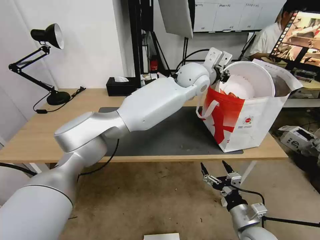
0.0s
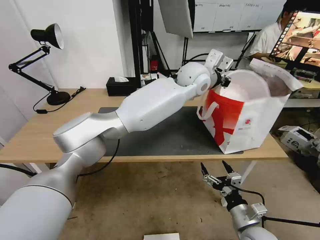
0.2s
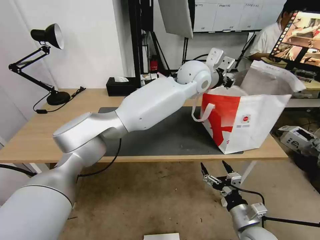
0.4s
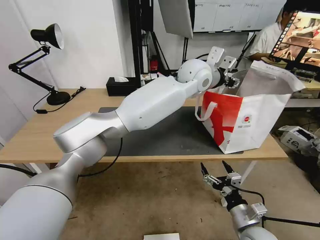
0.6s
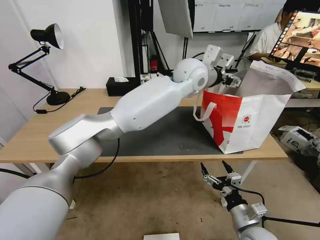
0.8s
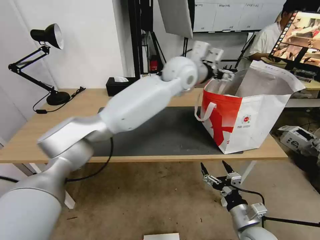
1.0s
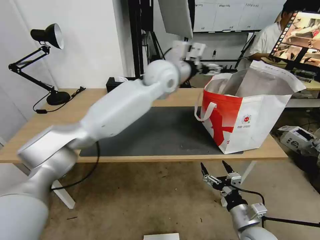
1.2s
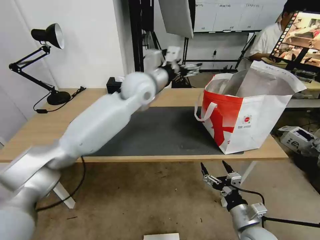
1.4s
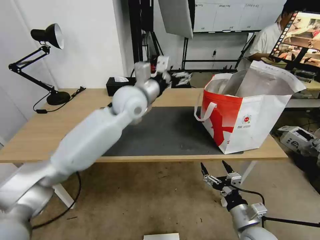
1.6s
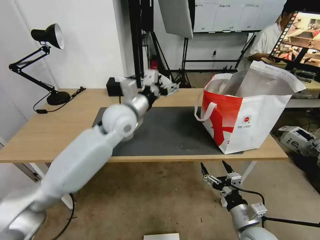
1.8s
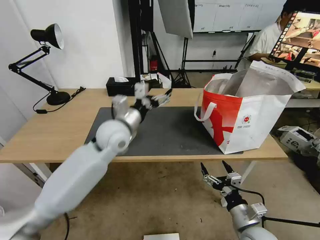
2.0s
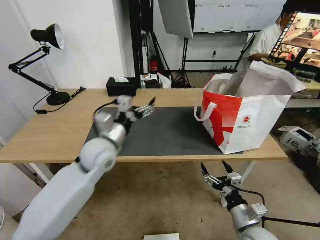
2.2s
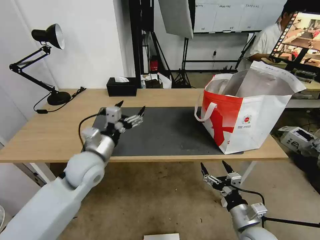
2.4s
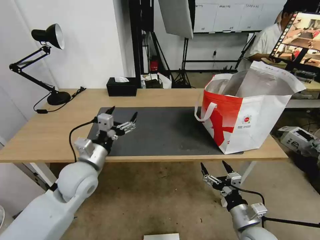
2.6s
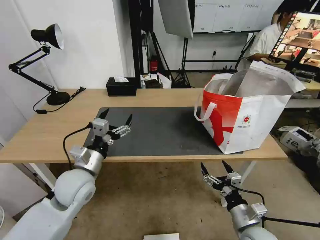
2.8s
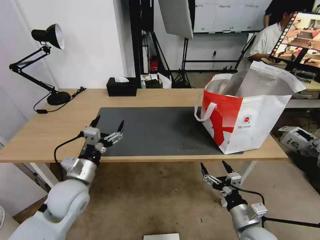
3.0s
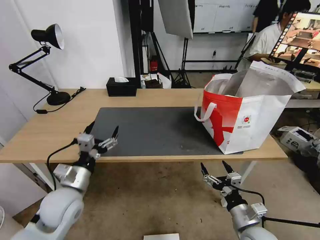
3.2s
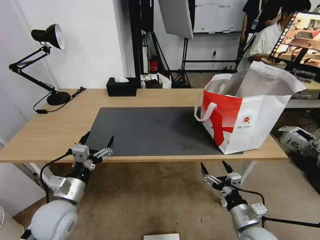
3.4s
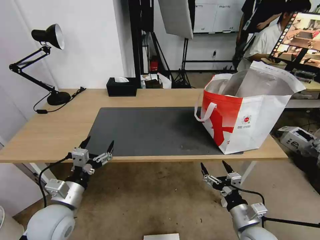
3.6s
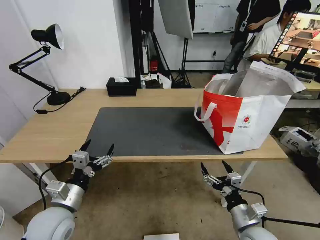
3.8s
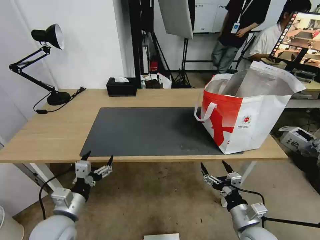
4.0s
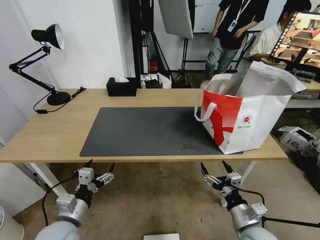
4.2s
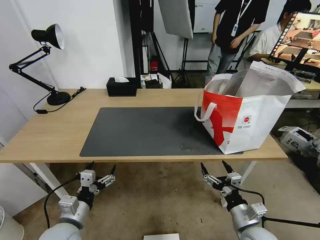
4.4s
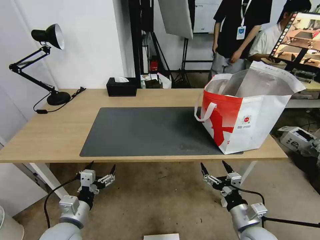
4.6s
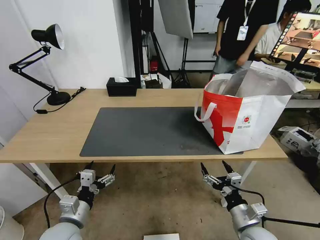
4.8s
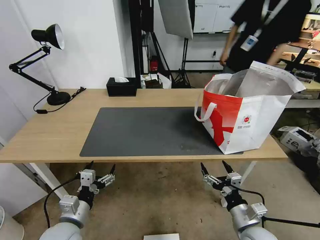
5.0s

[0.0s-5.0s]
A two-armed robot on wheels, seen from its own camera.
Task of the whole recording: Pick up the trash from the table and place it into the takeout bag.
0.0s to 1.6s: The left gripper is displaced to the left and backward by some 20 cm, and opens.
1.6s to 3.4s: The left gripper shifts about 35 cm backward, downward and to the left.
3.4s to 5.0s: The left gripper shifts roughly 5 cm downward.

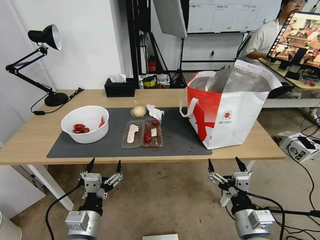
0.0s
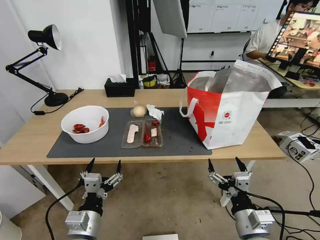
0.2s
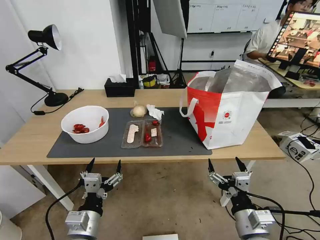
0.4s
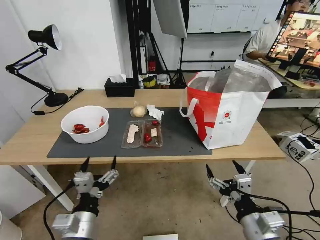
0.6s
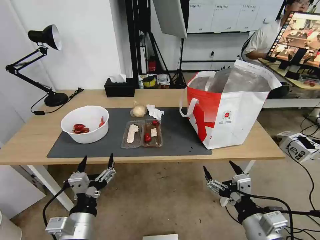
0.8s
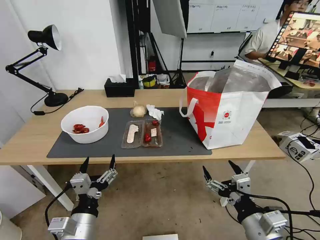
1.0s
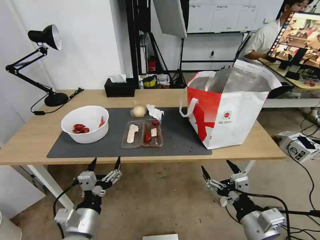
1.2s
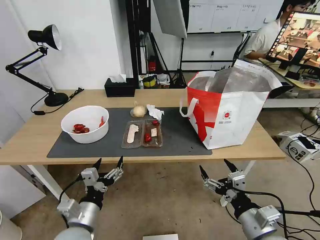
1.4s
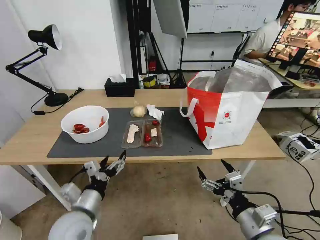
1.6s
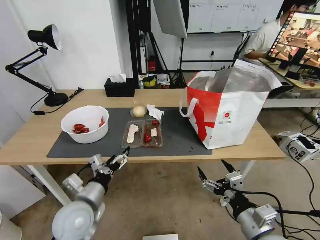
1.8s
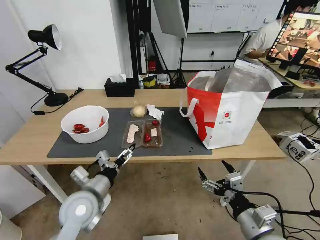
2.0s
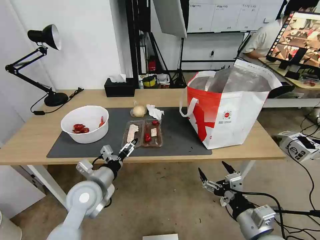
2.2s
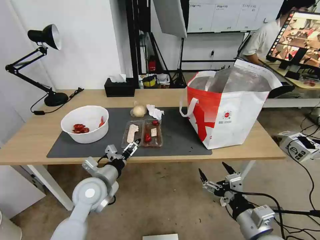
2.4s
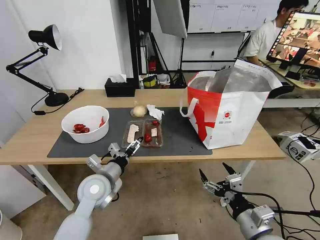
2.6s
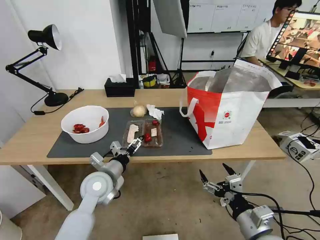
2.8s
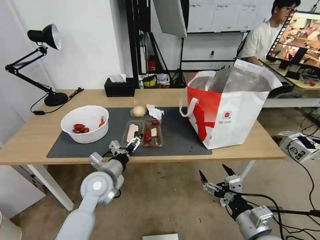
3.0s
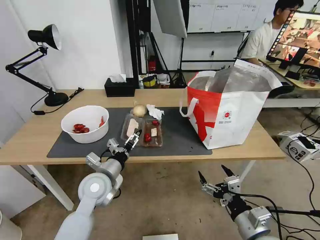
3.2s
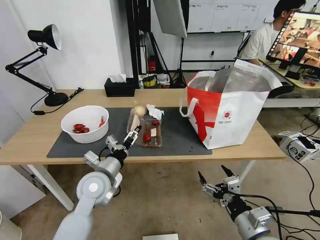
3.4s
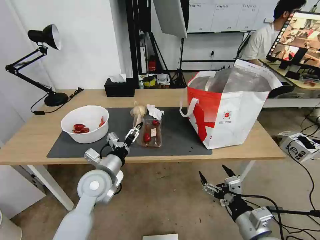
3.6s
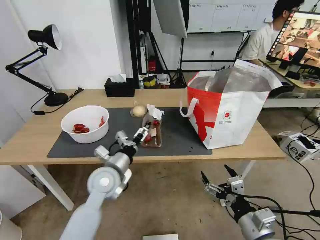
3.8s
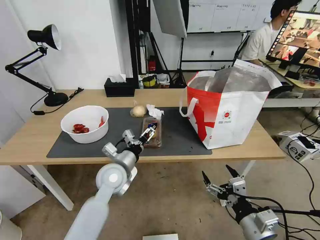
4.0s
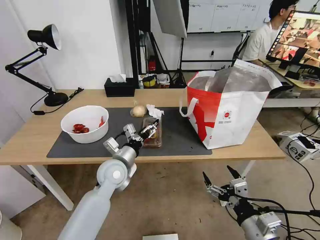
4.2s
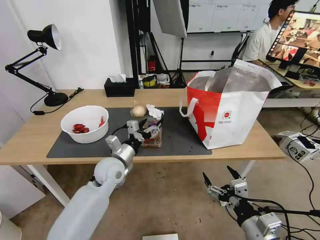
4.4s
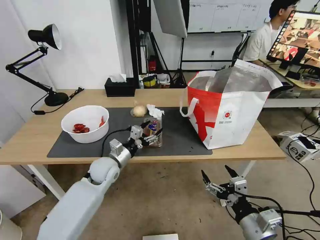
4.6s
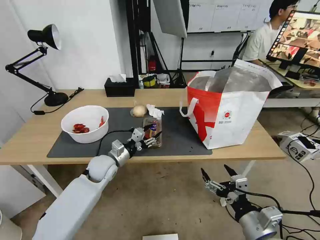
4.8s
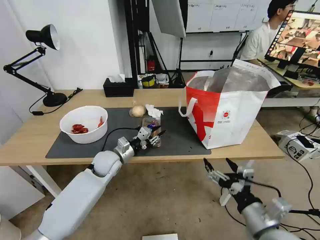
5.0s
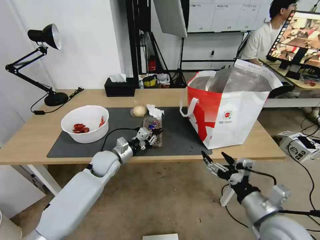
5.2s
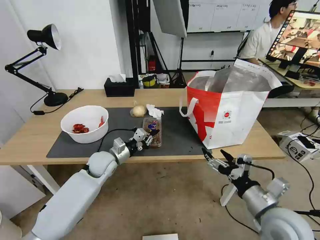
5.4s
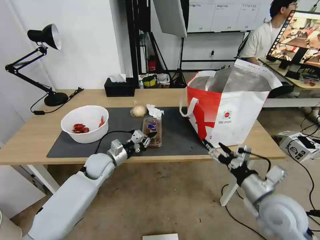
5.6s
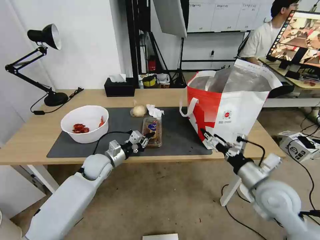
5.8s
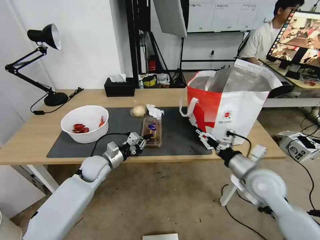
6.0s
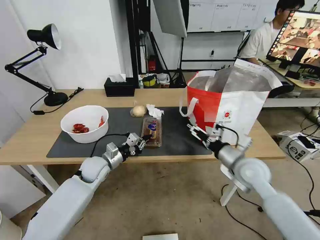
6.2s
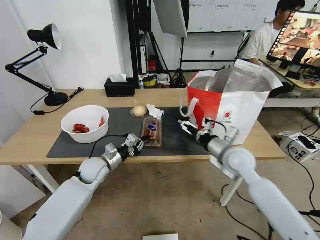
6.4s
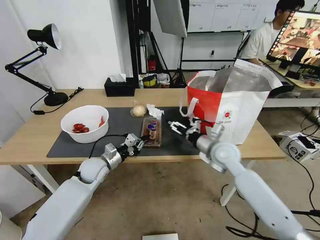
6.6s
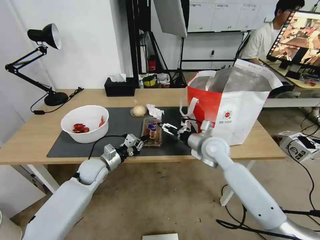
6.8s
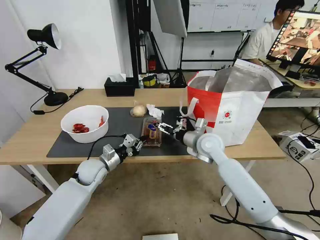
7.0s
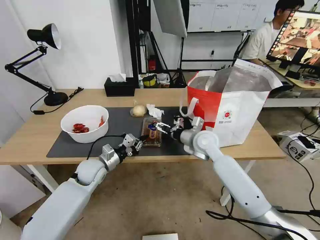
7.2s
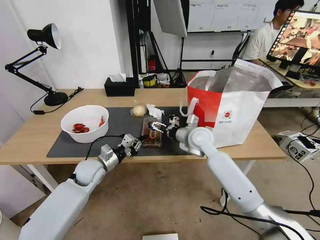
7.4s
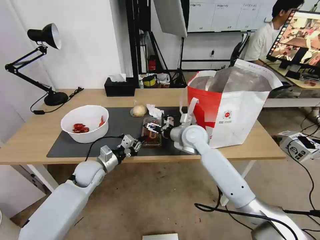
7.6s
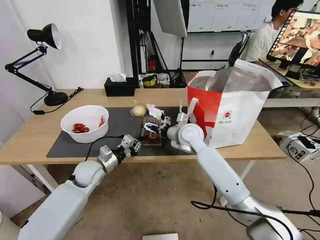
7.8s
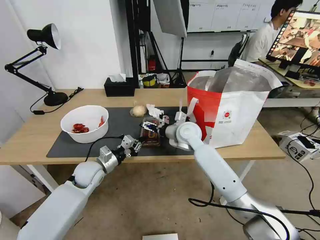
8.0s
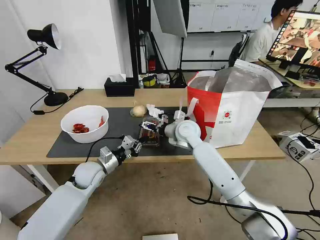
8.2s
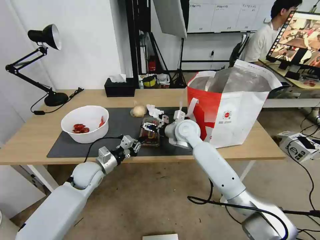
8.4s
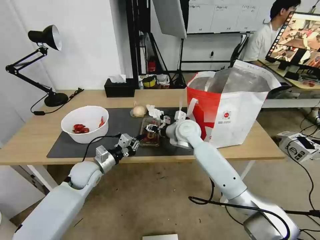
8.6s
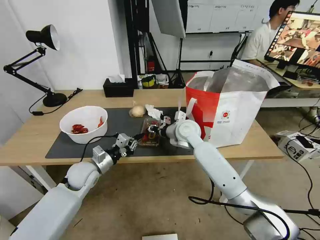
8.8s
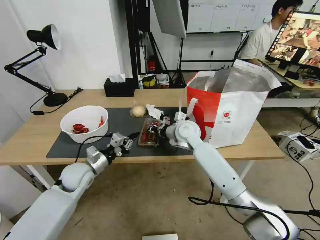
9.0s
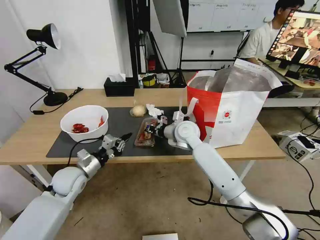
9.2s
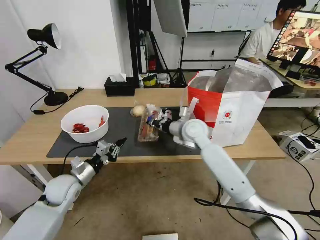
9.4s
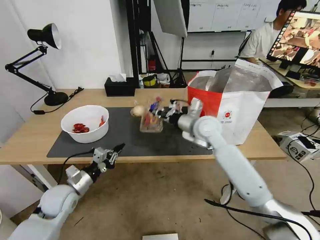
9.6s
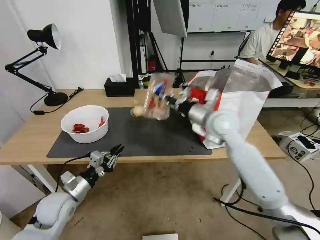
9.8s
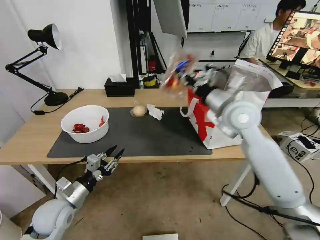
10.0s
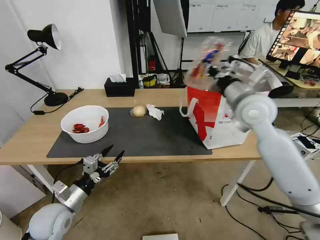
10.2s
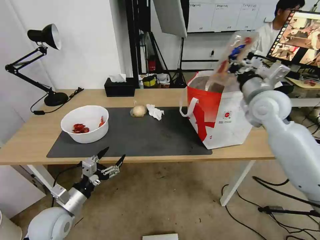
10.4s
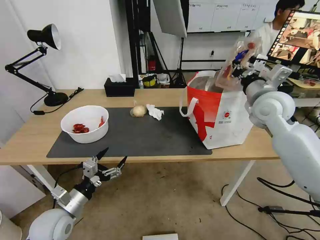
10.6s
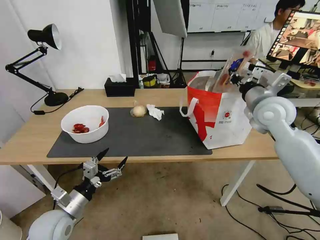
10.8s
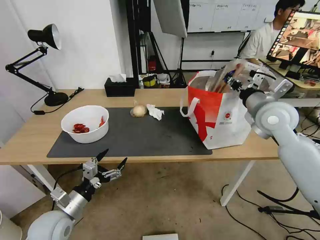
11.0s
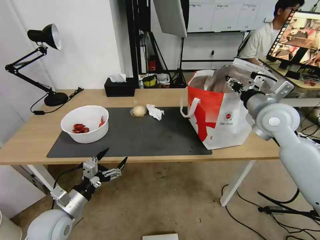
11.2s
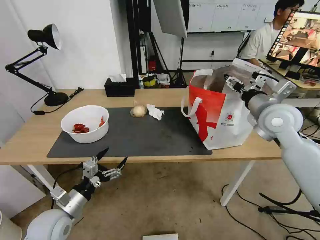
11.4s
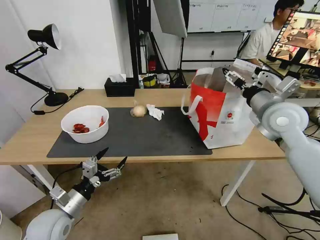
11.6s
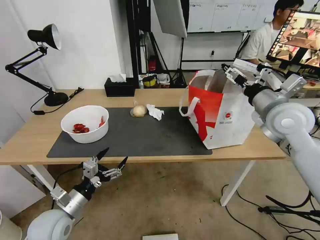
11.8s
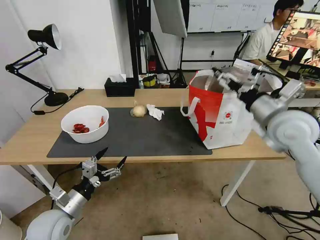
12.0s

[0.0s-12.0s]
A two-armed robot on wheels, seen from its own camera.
Task of the whole recording: Pick up the trash from the table and place it into the takeout bag.
1.6s to 3.0s: The left gripper goes some 10 cm forward.
3.0s to 4.4s: The left gripper goes about 5 cm forward.
4.4s to 6.0s: The left gripper goes roughly 5 cm to the left, and closes its fingers, while the right gripper goes roughly 20 cm forward.
6.0s to 7.6s: The right gripper travels forward and to the left by approximately 25 cm.
7.6s to 9.0s: The right gripper closes.
9.0s to 10.4s: The left gripper goes some 15 cm backward, and opens up; the right gripper goes some 25 cm to the right and upward.
10.4s to 12.0s: The right gripper shifts about 10 cm backward, and opens its fingers.

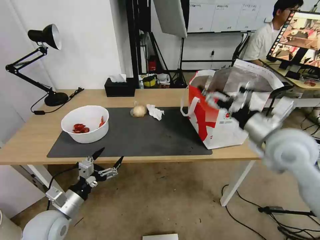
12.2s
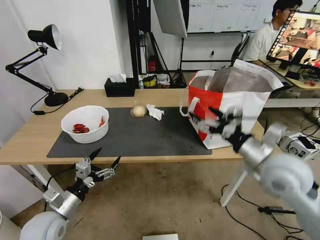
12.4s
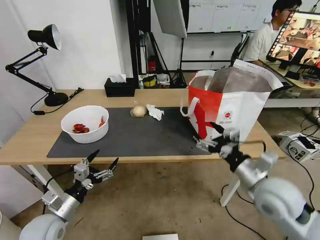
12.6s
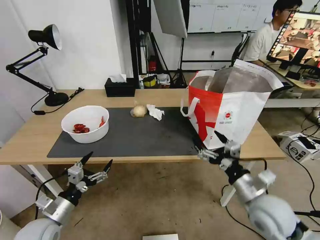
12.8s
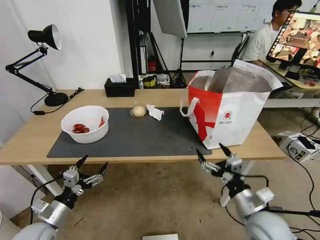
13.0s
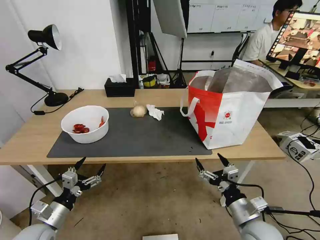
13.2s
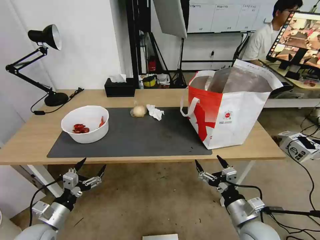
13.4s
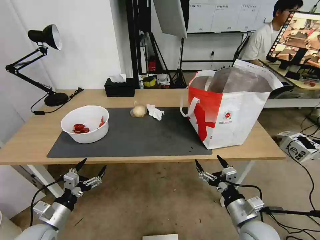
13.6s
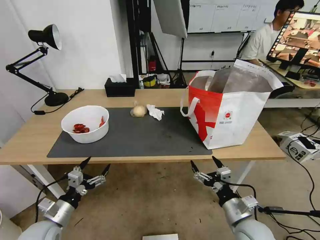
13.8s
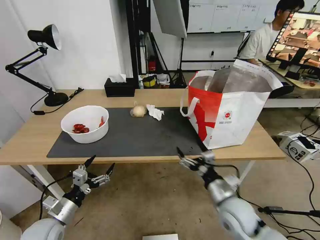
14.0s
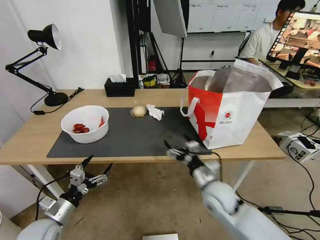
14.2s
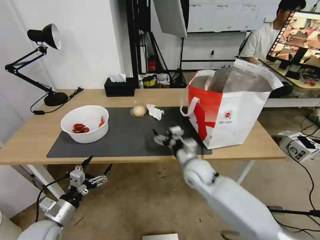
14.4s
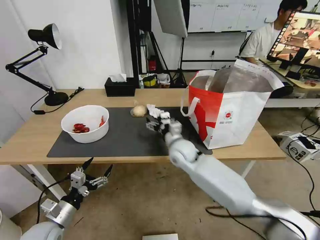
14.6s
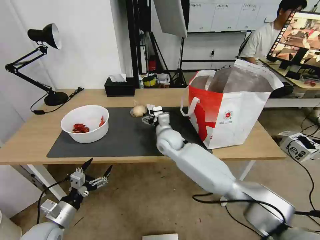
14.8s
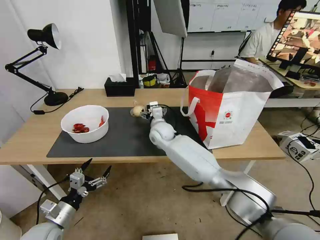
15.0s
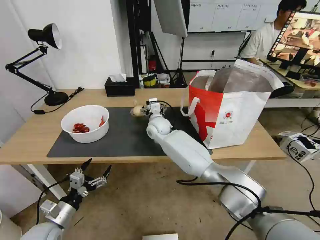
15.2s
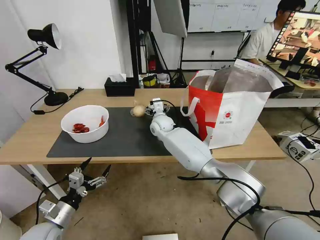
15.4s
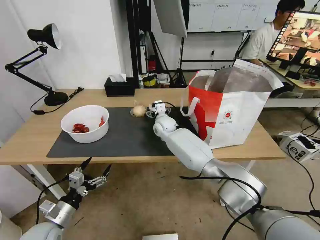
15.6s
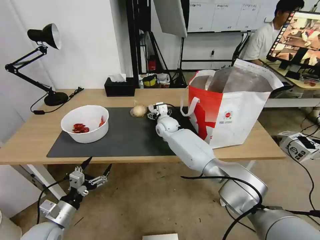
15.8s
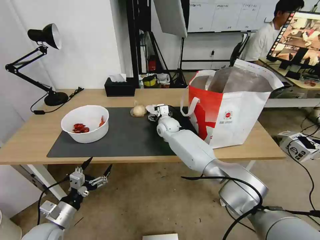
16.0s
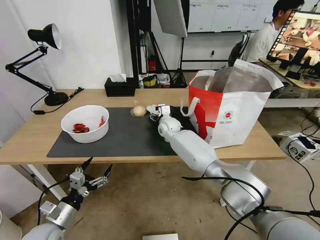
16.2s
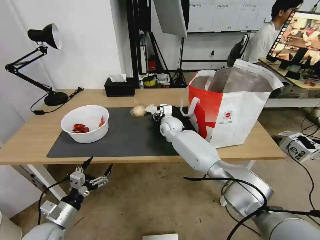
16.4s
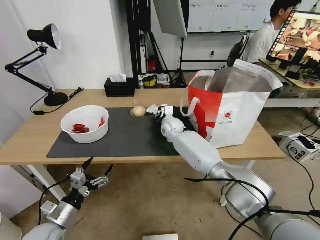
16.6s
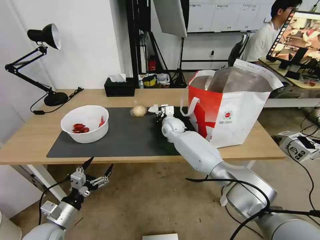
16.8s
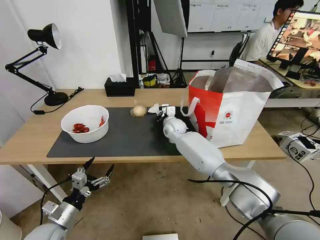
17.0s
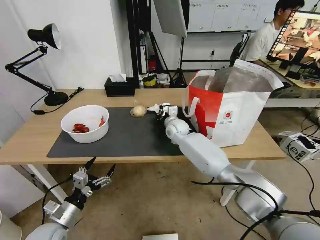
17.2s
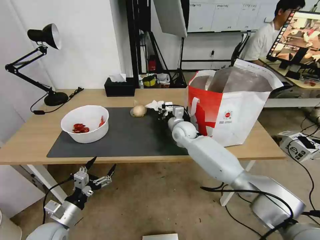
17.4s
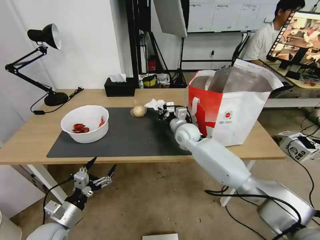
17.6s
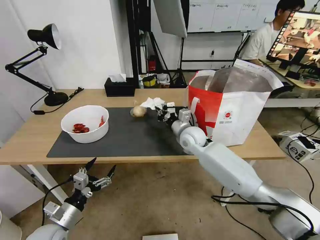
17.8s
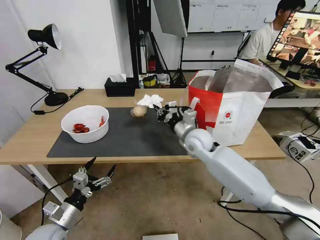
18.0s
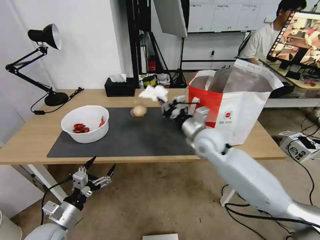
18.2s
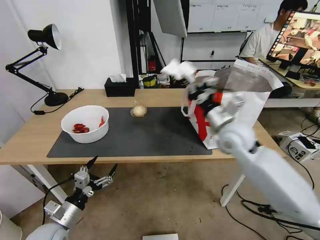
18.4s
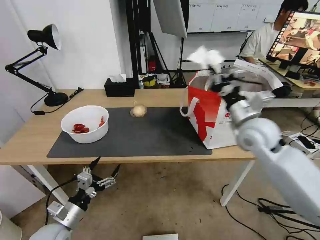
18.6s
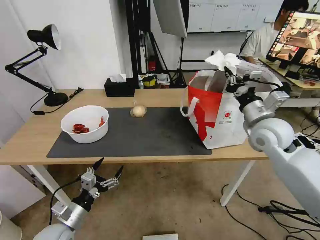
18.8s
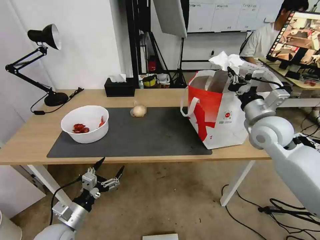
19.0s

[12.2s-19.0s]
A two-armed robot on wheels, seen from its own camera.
Task of the whole recording: Pick up the trash from the table and place it into the takeout bag.
12.2s to 13.6s: The left gripper changes place by approximately 5 cm. Meanwhile the right gripper is displaced downward and backward by some 30 cm.
13.6s to 15.0s: The right gripper travels forward and to the left by some 40 cm.
15.0s to 16.2s: The right gripper travels forward by approximately 5 cm.
16.2s to 17.6s: The right gripper shifts some 10 cm to the right and backward, and closes its fingers.
17.6s to 19.0s: The right gripper shifts roughly 25 cm to the right, upward and backward.
